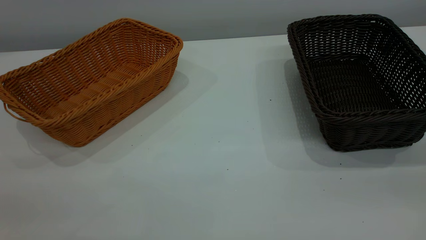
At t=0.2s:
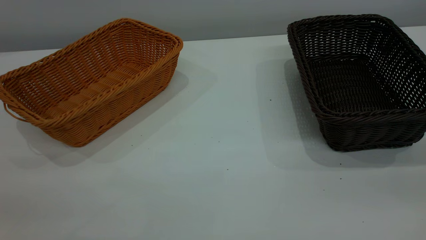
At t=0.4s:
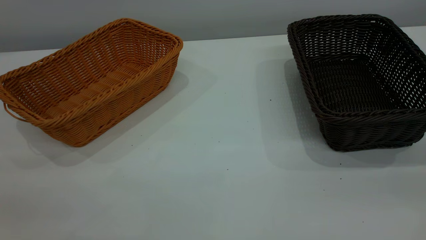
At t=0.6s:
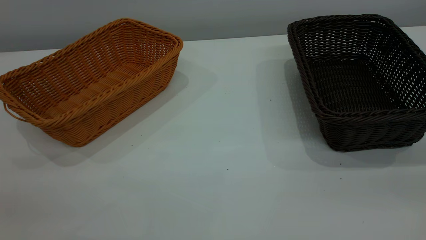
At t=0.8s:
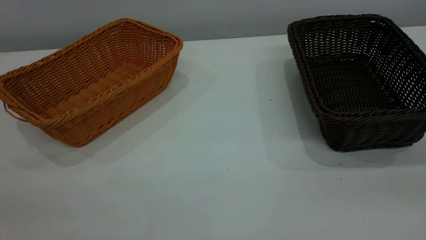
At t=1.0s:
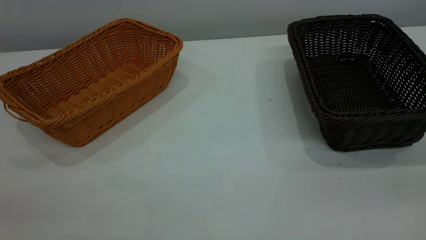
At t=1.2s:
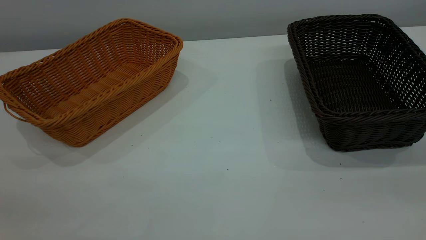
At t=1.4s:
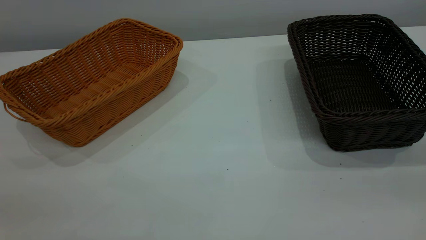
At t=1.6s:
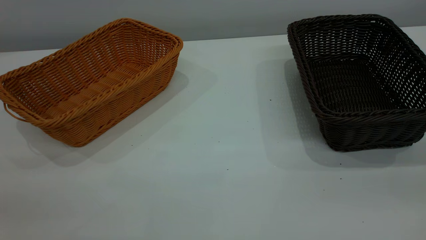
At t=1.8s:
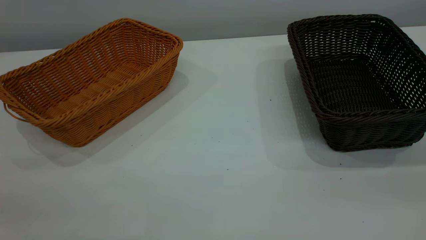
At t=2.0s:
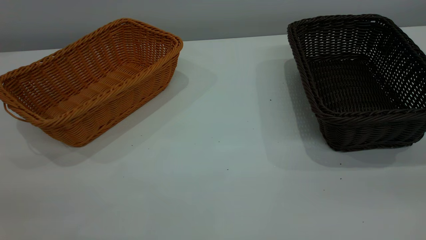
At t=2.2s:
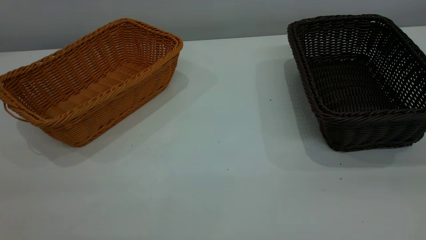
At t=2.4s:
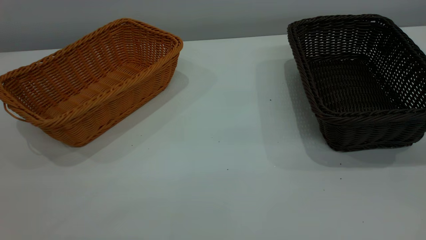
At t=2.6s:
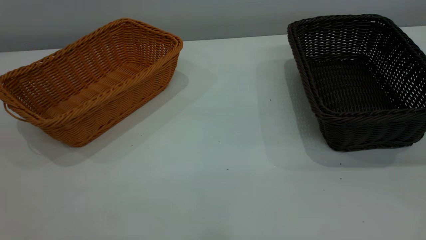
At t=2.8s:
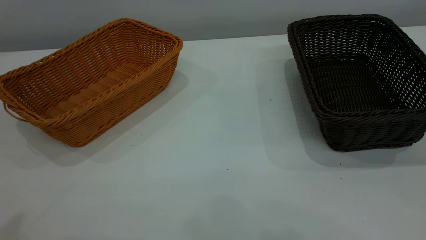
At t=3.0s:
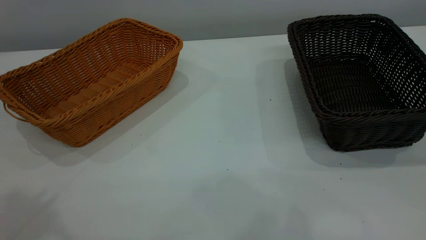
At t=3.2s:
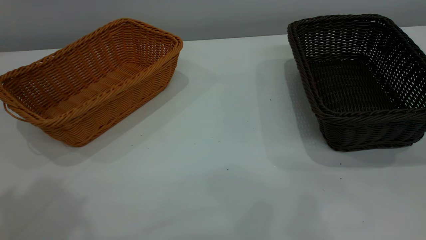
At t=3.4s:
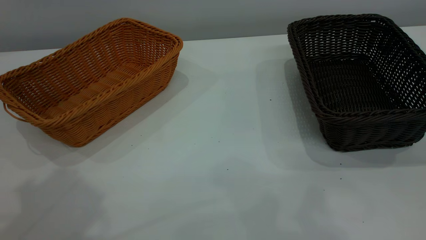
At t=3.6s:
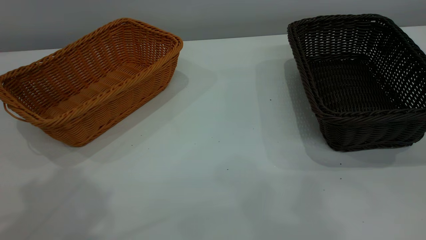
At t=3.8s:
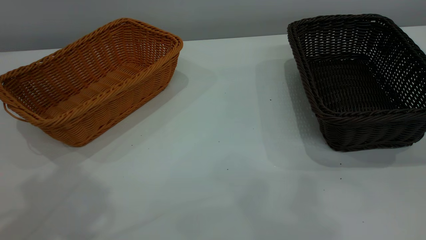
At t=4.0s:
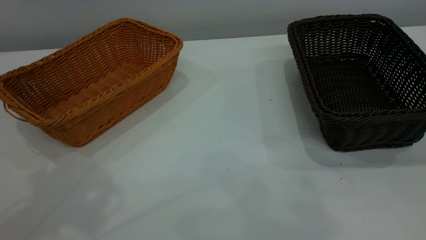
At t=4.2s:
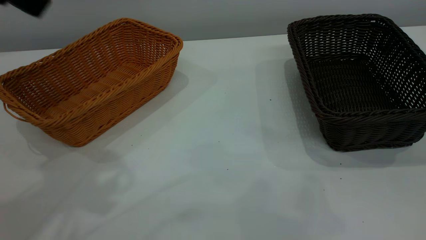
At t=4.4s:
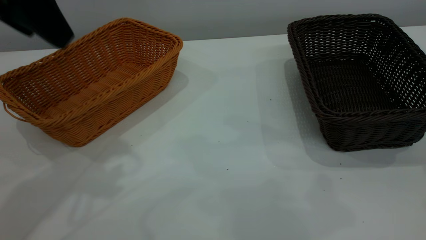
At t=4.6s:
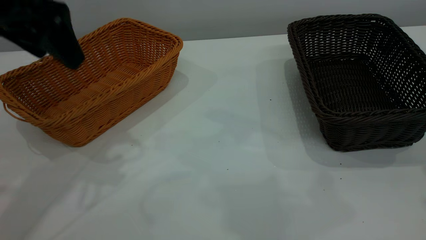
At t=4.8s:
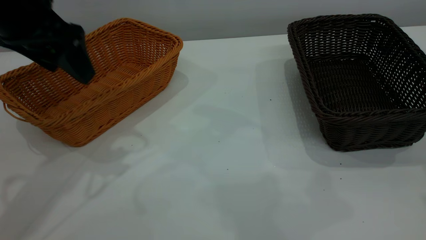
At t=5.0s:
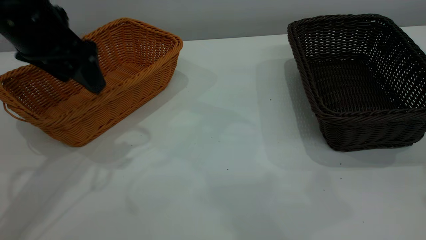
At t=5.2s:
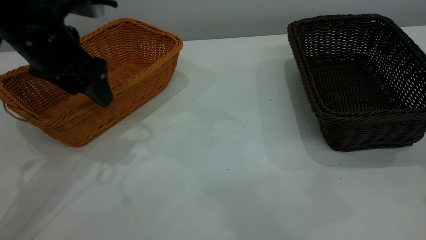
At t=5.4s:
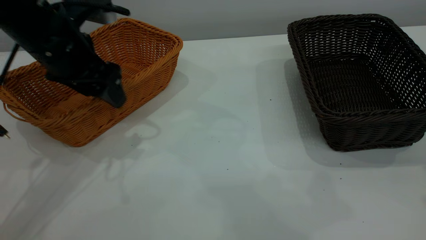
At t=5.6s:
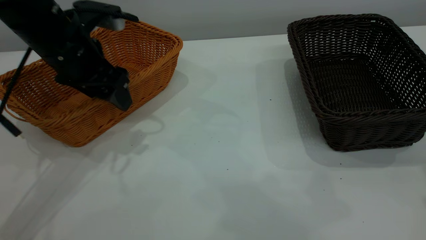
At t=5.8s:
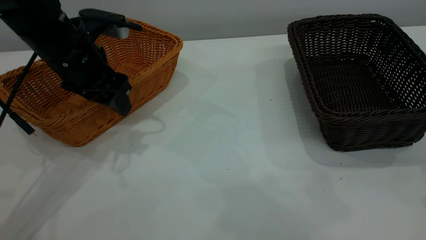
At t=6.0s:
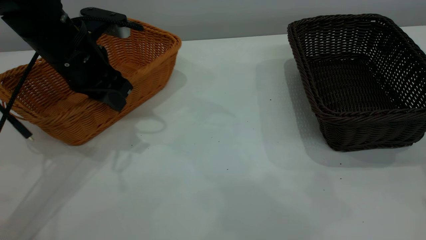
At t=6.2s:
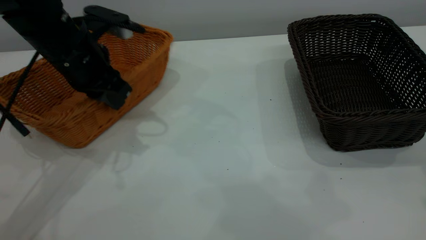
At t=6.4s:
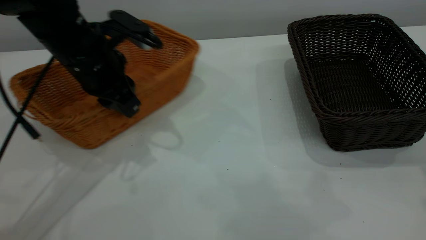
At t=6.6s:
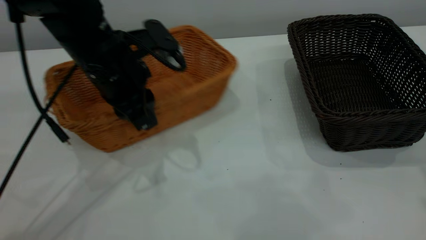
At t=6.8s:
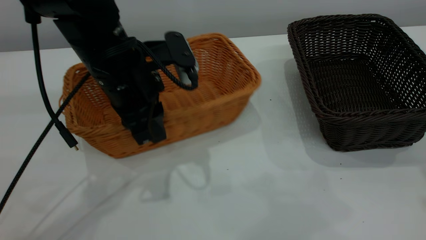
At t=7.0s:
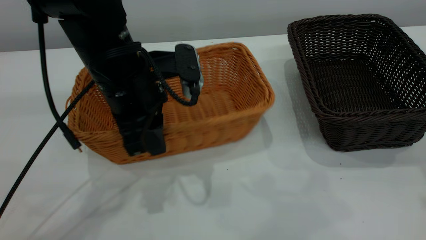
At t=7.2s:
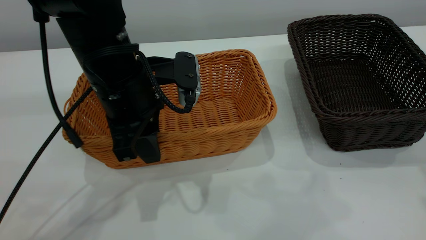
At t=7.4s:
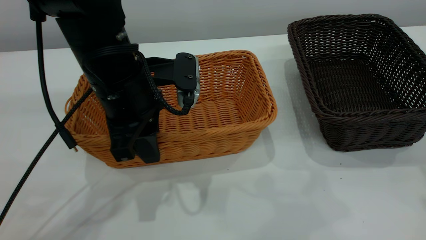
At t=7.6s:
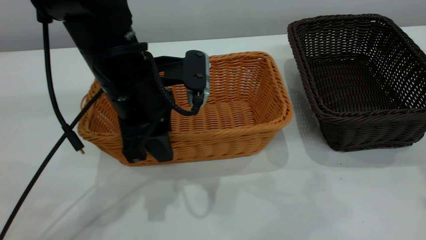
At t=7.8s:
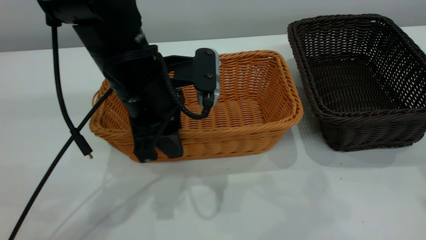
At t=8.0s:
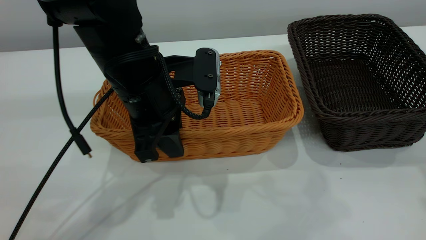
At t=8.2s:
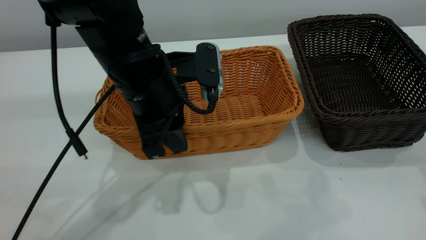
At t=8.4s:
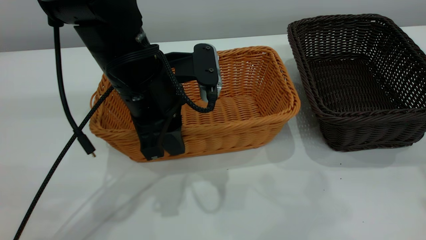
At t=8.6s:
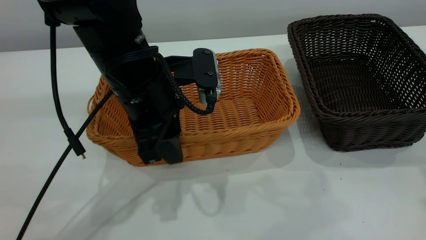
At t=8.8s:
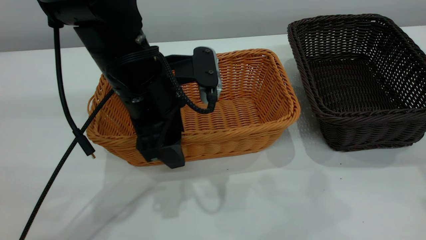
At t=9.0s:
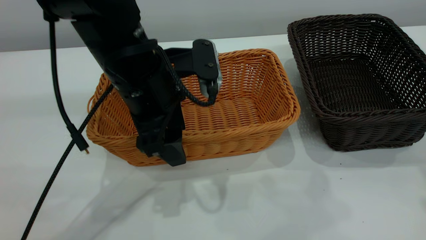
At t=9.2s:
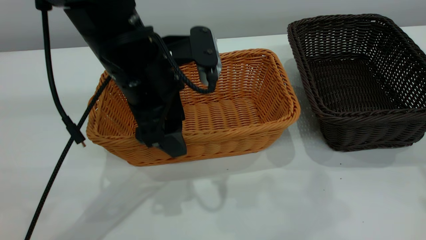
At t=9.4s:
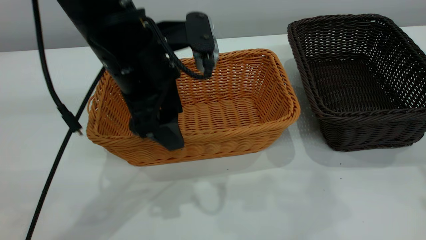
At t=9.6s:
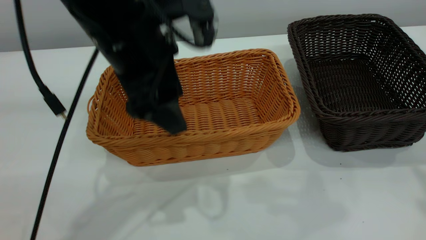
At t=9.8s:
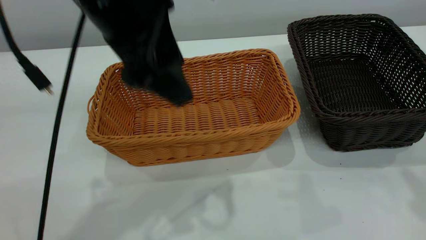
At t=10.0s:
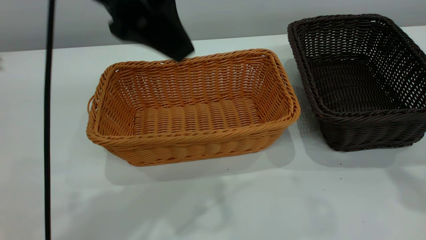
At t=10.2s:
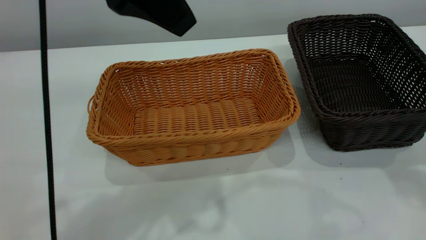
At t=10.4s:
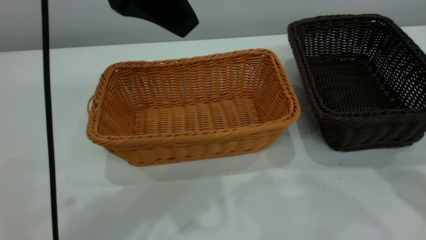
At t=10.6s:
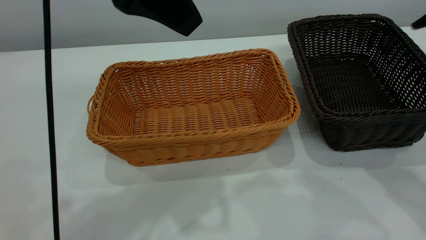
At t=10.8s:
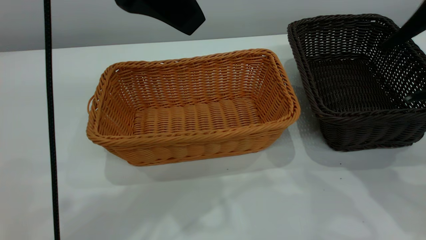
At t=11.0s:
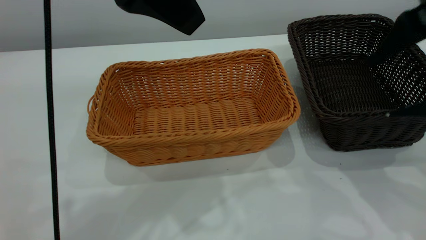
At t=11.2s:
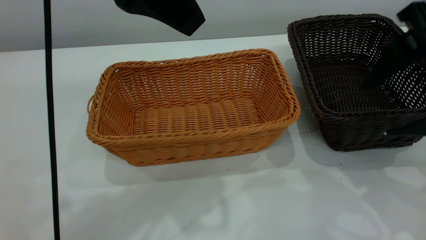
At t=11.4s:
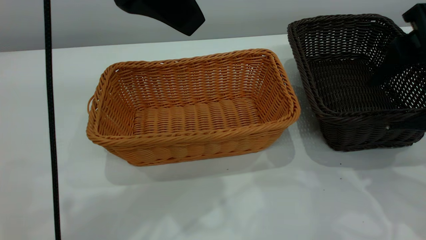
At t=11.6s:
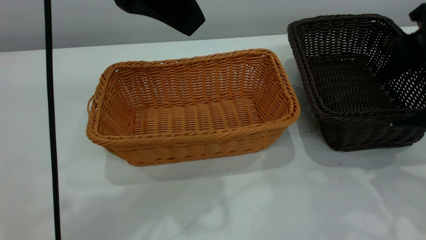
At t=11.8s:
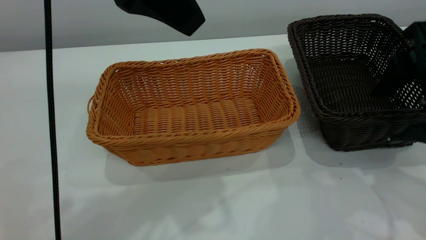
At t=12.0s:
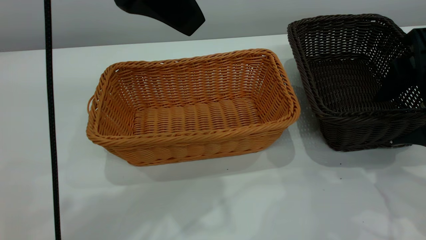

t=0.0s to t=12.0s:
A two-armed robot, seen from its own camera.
Task of the whole recording: the left gripper grasp the brown basket and place it in the center of the table, the right gripper grasp the black basket and place it inside the brown one.
Step, t=0.0s to t=9.8s: Place the light-colored basket in the center.
t=0.0s to t=1.6s: Both grippers stay about where they are.
t=3.0s to t=4.4s: The left gripper shifts roughly 15 cm downward and forward, and opens up.
t=4.4s to t=6.0s: The left gripper is displaced downward and forward by about 15 cm, and closes its fingers.
t=6.0s to t=7.6s: The left gripper moves to the right and backward, some 10 cm.
t=7.6s to t=9.0s: The left gripper opens.
t=9.0s to t=10.4s: The right gripper moves downward, approximately 10 cm, while the left gripper heads upward, covering about 15 cm.
t=10.4s to t=12.0s: The right gripper heads downward, covering roughly 10 cm.

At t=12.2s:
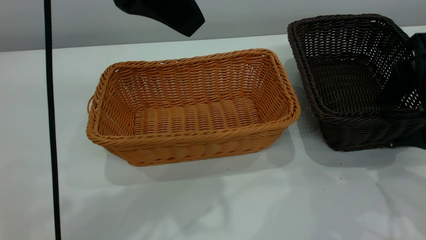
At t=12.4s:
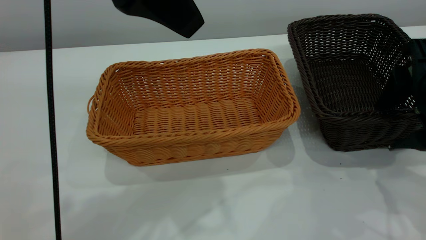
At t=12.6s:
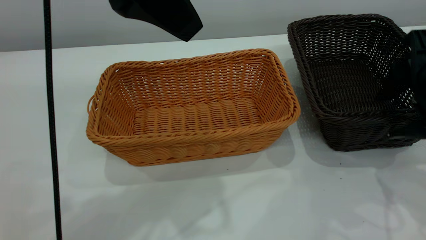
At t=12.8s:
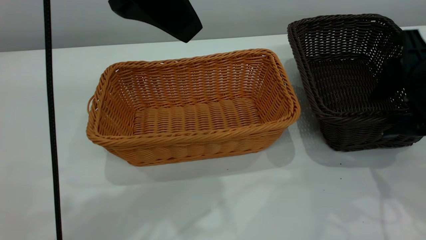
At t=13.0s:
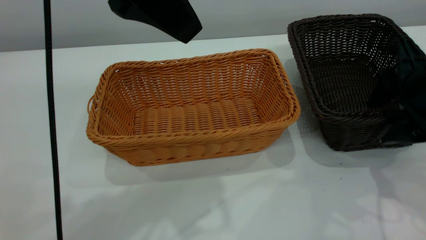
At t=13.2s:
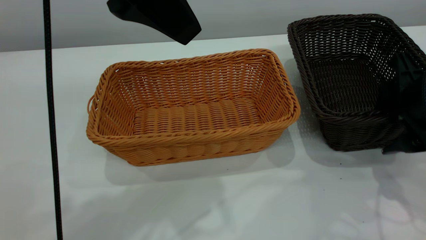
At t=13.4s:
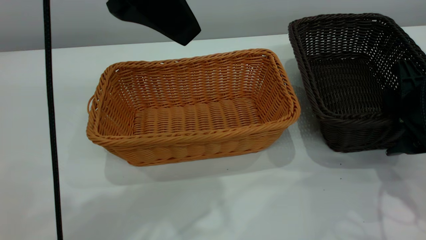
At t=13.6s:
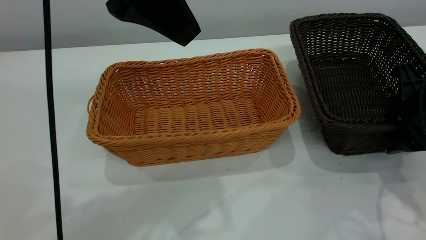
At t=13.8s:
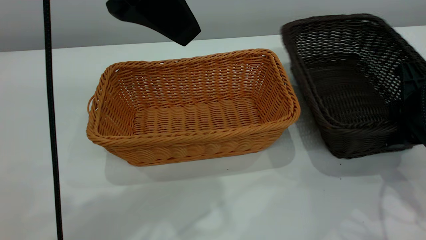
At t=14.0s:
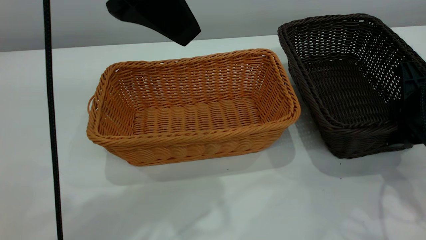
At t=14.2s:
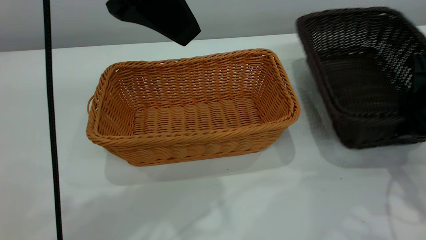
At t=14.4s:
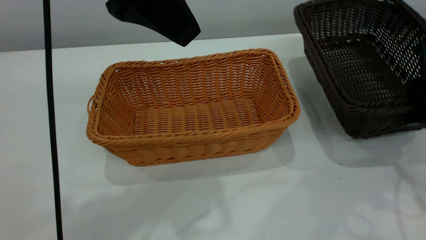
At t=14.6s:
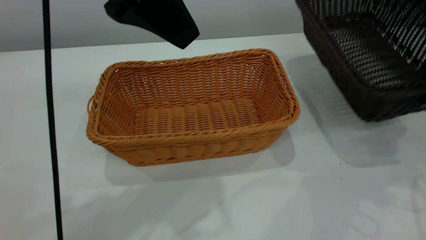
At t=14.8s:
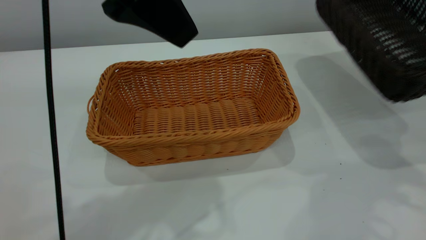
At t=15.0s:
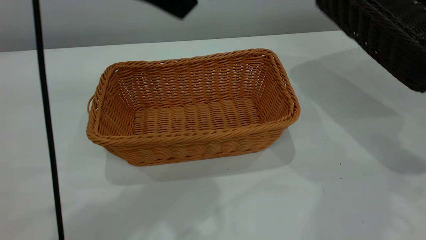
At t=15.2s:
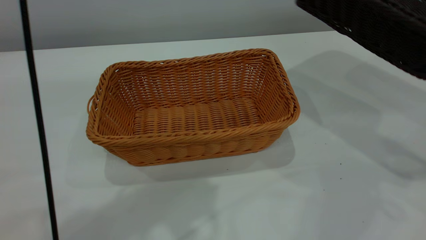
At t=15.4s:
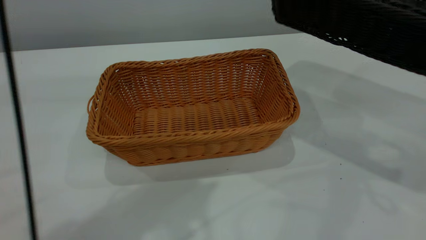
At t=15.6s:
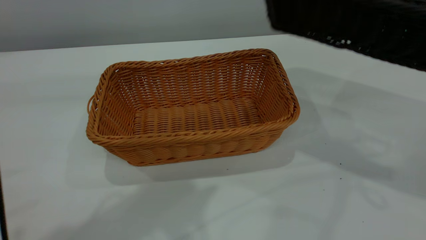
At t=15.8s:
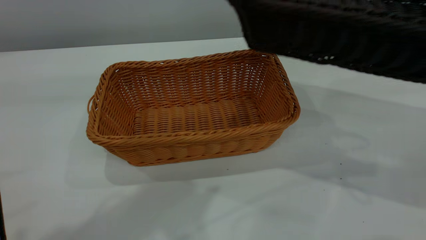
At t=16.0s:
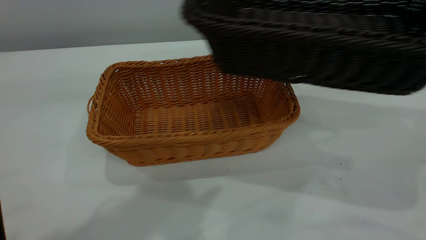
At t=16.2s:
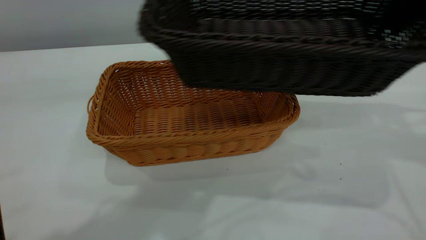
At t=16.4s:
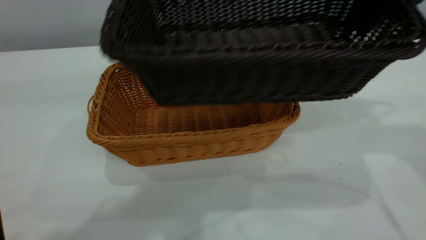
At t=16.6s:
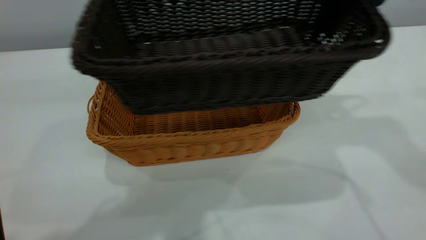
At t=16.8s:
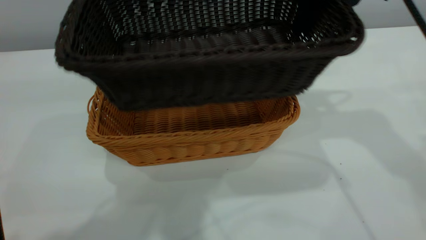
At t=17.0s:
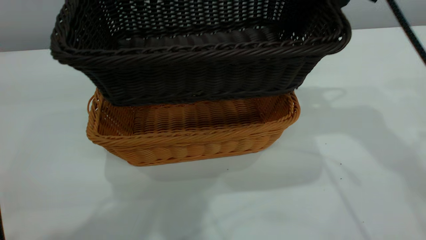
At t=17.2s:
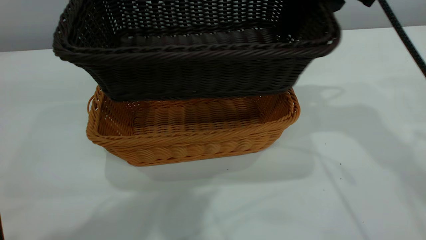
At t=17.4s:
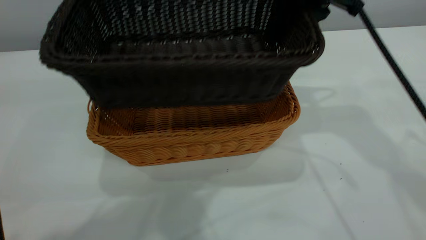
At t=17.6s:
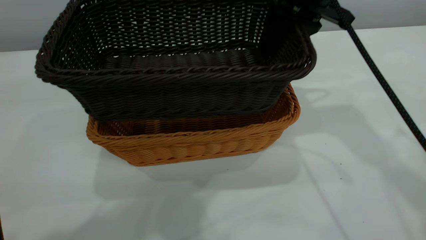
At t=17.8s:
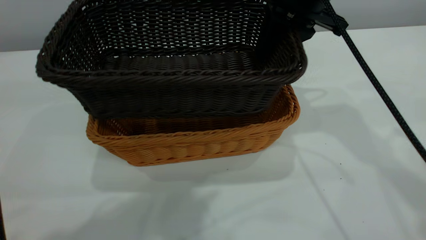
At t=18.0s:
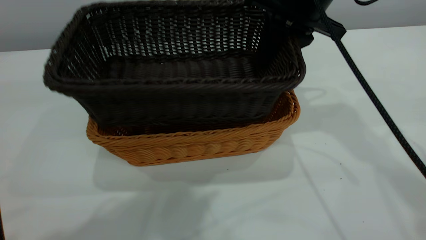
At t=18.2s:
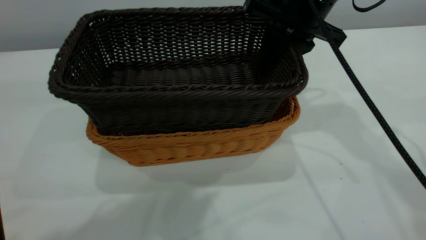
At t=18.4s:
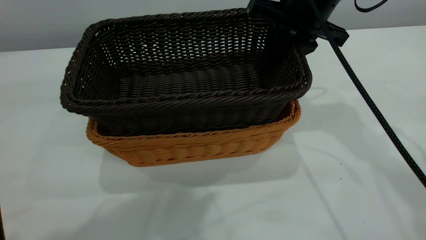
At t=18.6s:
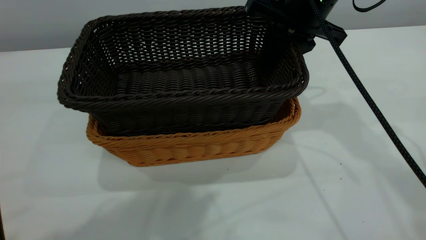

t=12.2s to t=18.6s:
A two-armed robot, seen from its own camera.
Task of the whole recording: the left gripper grasp the brown basket and place it in the center of the table, the right gripper grasp the black basket and place it inside the brown one.
Step, t=12.2s to t=14.4s: Pick up the light basket with the right gripper.
t=12.2s to t=13.8s: The right gripper shifts by about 5 cm, and closes up.
t=13.8s to t=15.4s: The left gripper goes about 5 cm upward; the right gripper is displaced upward and to the right by some 20 cm.
t=15.4s to t=17.0s: The right gripper travels to the left and forward by approximately 20 cm.
t=17.0s to t=18.6s: The right gripper heads downward, covering roughly 5 cm.
